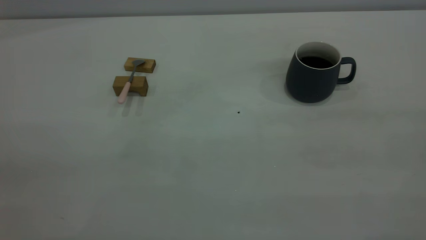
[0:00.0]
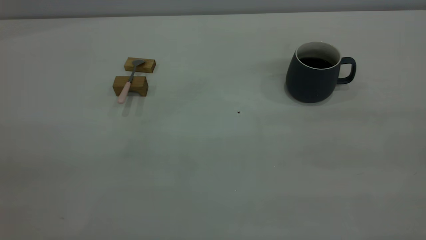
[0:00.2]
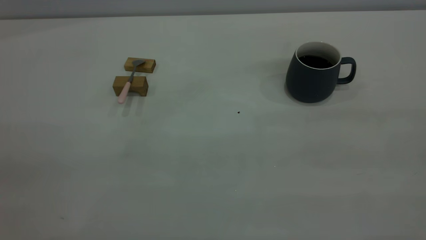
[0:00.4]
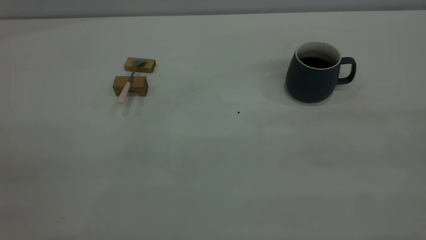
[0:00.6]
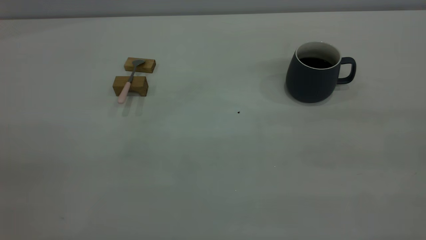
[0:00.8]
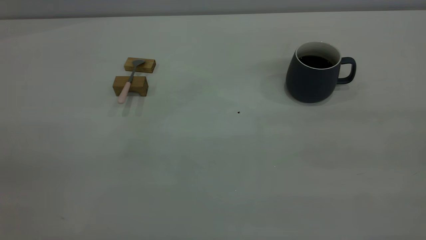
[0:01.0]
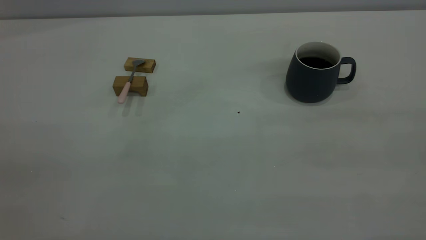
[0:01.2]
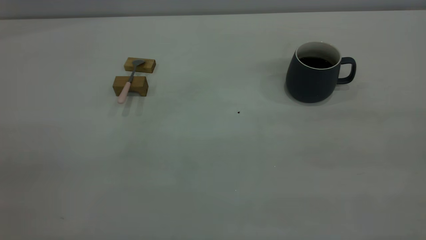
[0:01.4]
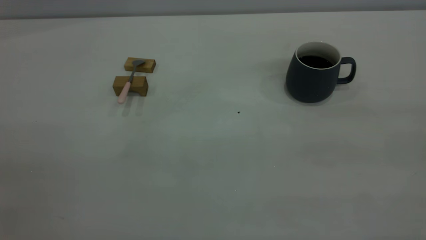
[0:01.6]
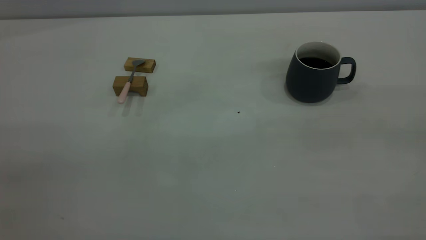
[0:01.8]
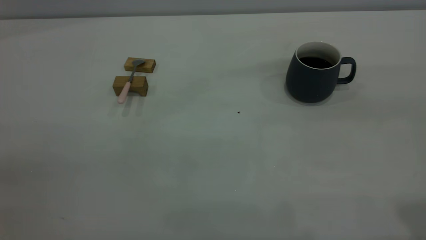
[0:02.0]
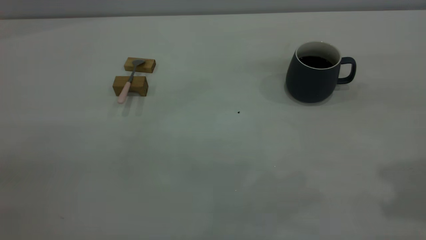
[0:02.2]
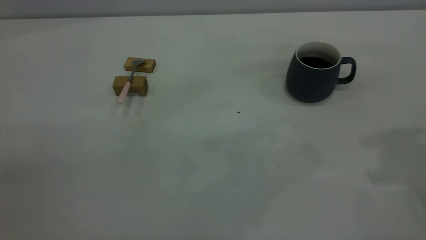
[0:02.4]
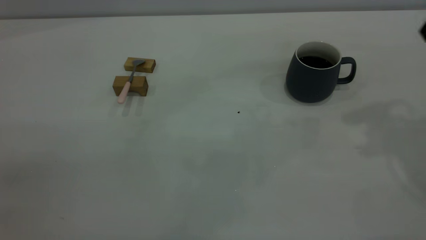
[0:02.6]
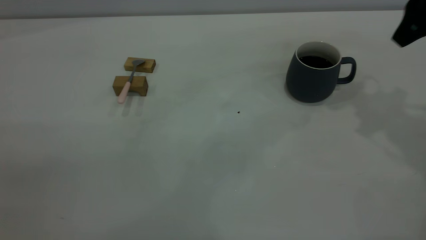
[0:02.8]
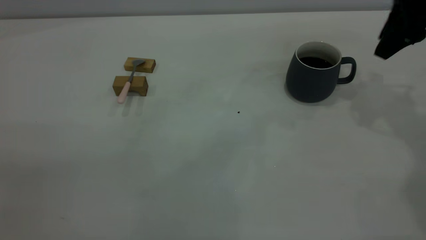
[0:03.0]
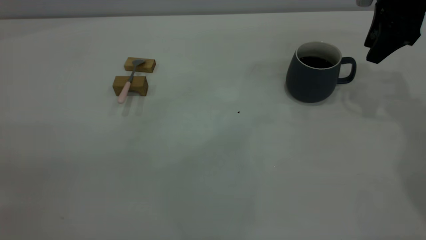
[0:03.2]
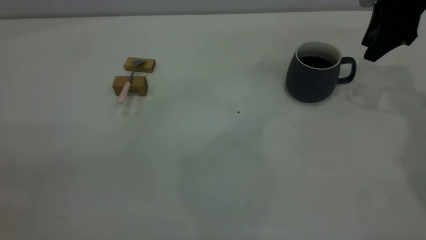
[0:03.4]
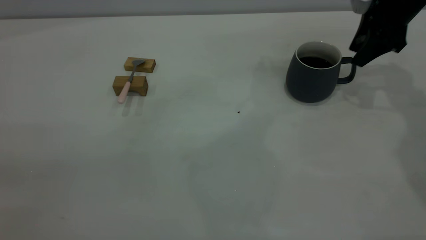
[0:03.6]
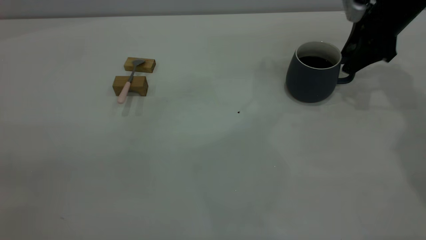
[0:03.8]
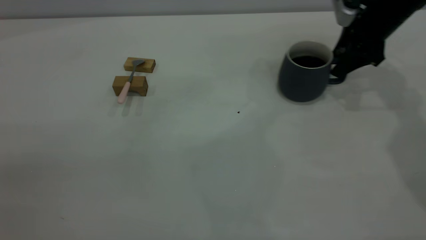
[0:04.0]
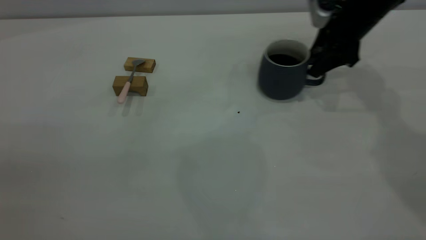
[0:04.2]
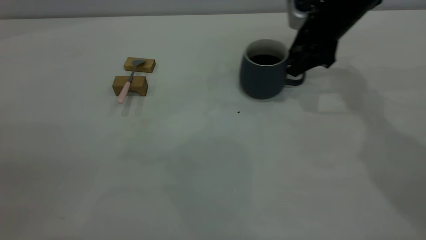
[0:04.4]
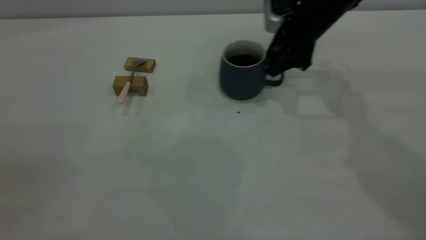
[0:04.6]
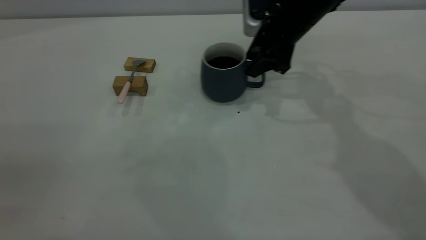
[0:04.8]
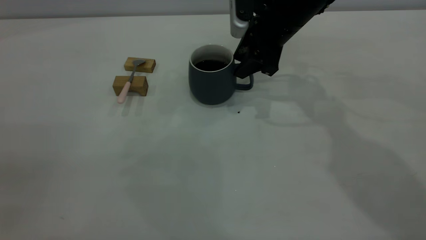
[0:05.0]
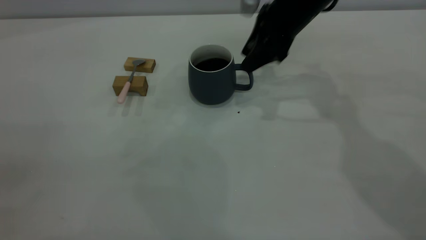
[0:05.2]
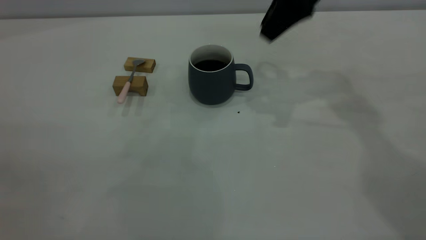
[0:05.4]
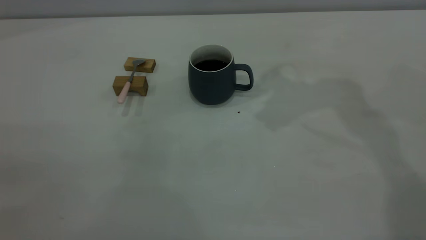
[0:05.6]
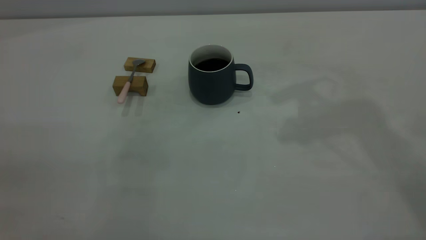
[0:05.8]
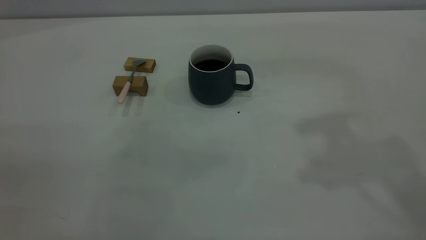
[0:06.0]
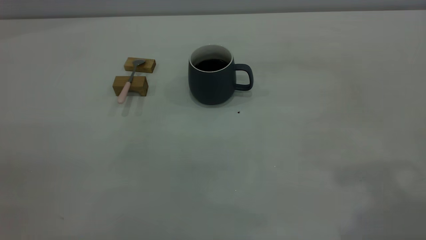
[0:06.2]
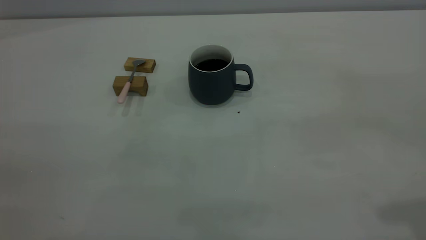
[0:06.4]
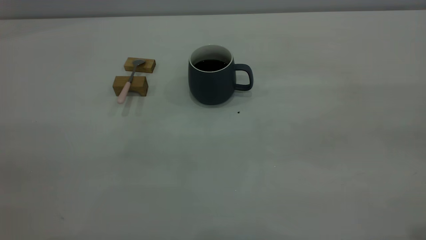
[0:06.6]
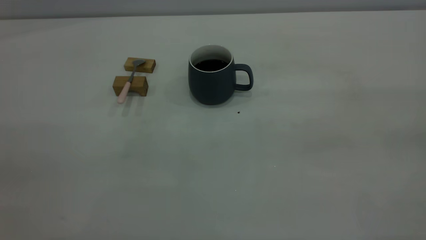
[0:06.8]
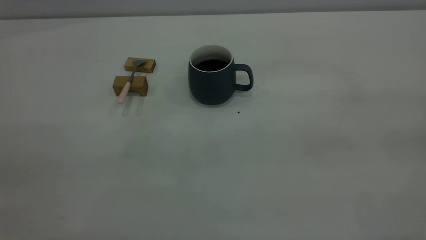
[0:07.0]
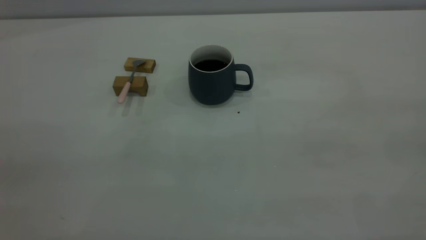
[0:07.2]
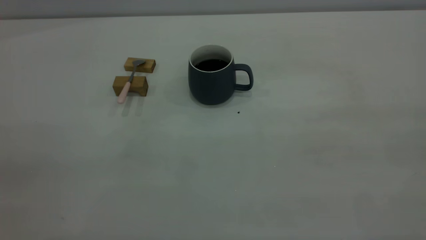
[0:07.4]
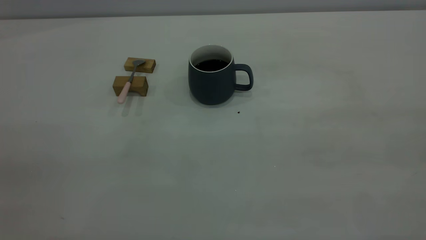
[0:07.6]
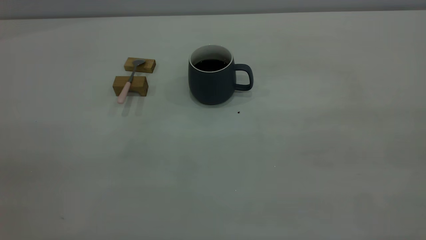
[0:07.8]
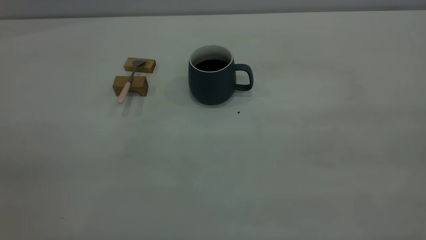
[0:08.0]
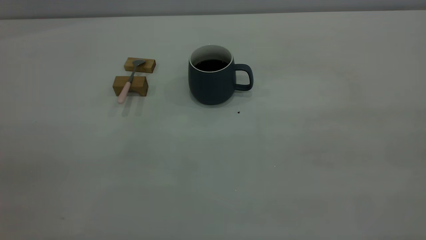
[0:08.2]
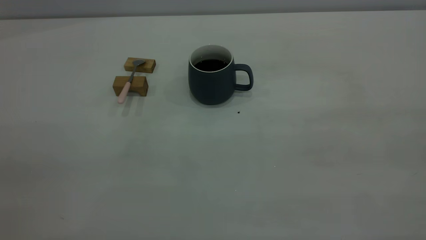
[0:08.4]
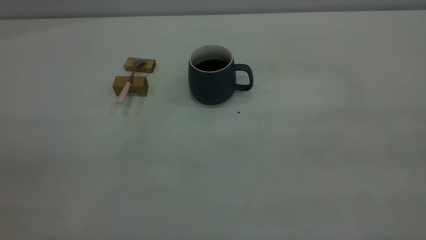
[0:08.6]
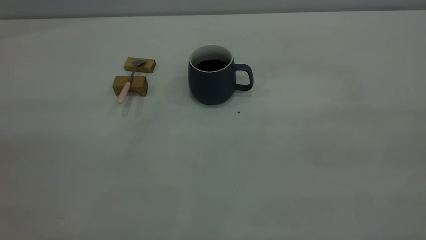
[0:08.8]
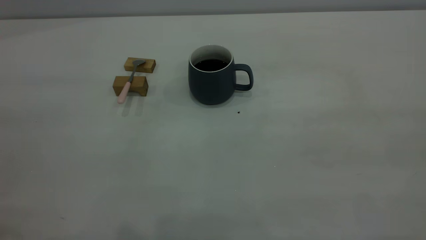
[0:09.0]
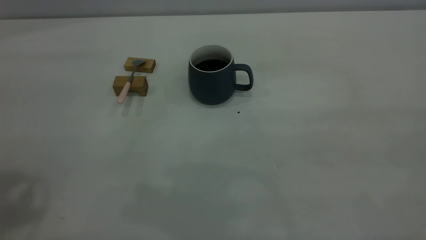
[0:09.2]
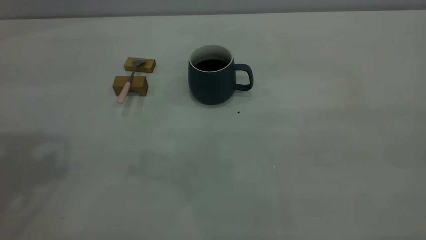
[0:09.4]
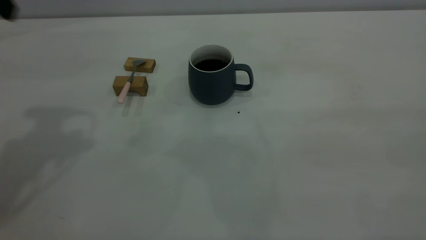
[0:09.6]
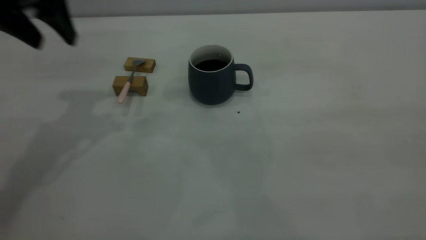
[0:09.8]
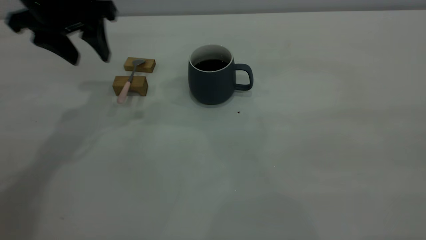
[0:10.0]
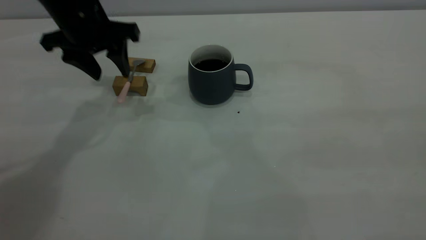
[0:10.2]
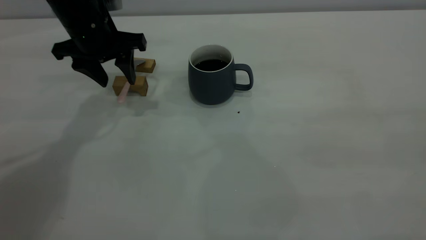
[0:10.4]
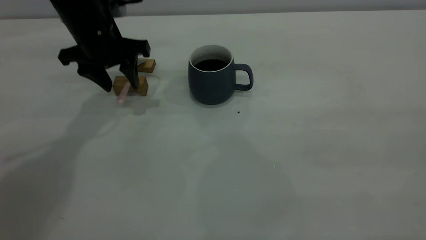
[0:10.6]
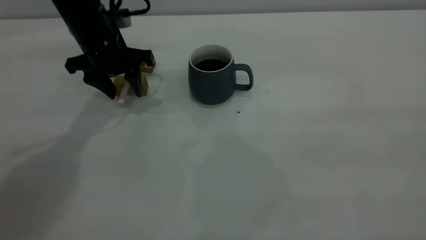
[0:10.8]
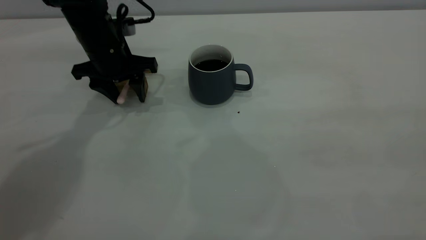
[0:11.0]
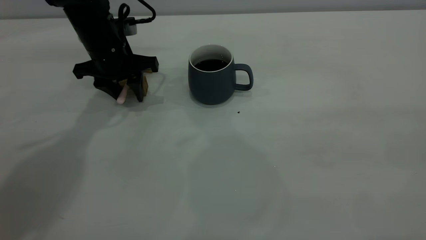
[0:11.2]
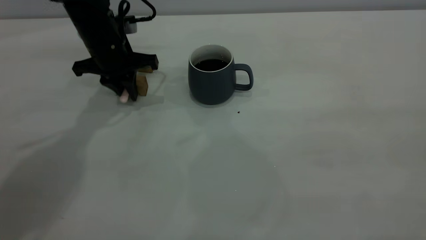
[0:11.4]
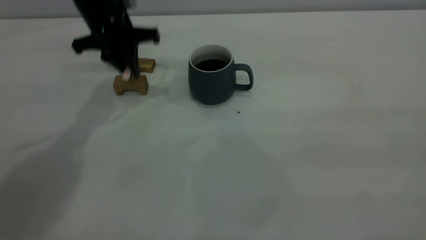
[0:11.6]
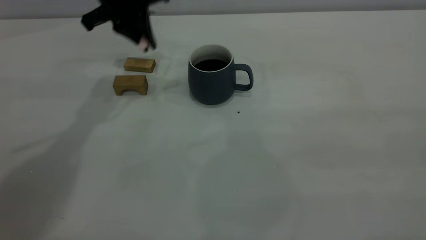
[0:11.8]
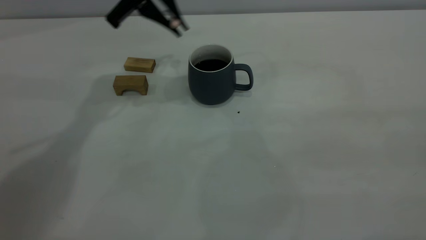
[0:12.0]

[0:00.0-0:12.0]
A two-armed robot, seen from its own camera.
Step, 0:00.0 to 0:05.2: Move the cup with coffee to the center of view.
Step, 0:05.4 to 0:11.6: Pick up the spoon.
0:01.6 to 0:03.0: The right gripper shifts roughly 40 cm forward and downward.
0:03.0 to 0:04.4: The right gripper moves to the left and downward, about 10 cm.
0:04.4 to 0:06.0: The right gripper heads upward and backward, covering about 35 cm.
0:09.0 to 0:10.4: The left gripper is displaced forward and downward by some 40 cm.
0:10.4 to 0:12.0: The left gripper shifts approximately 10 cm upward and to the right, and closes its fingers.

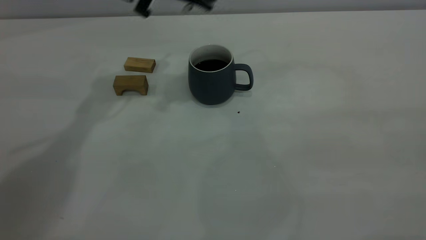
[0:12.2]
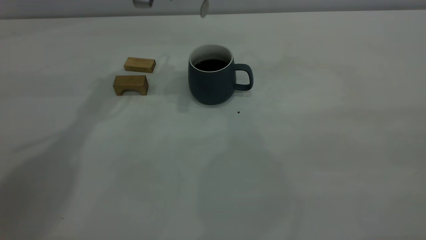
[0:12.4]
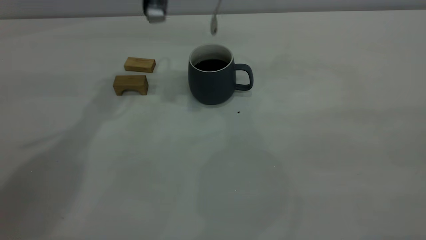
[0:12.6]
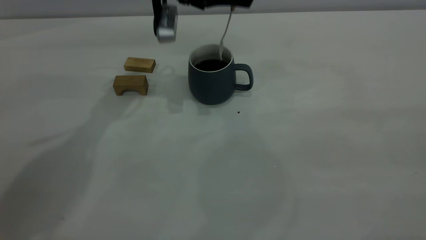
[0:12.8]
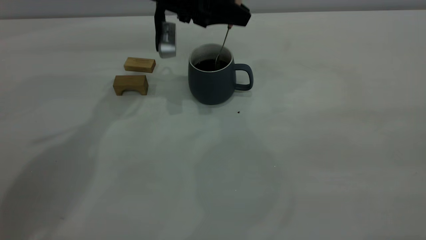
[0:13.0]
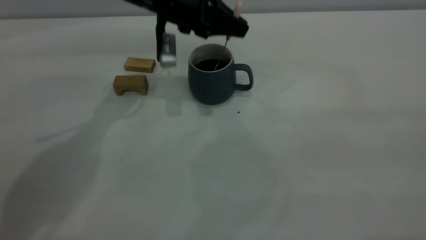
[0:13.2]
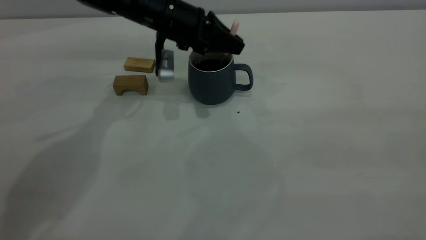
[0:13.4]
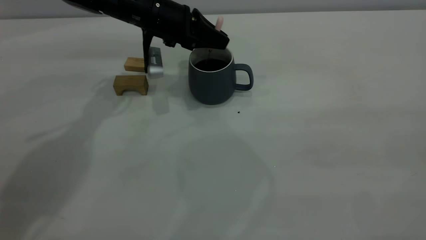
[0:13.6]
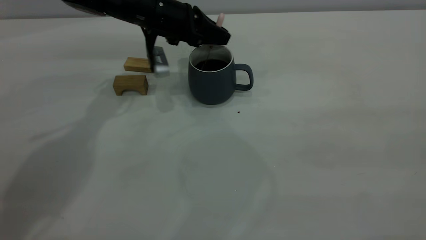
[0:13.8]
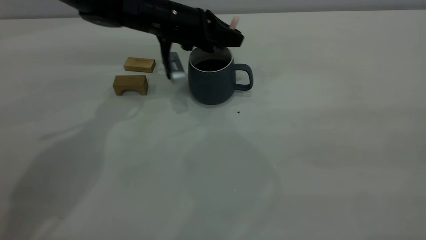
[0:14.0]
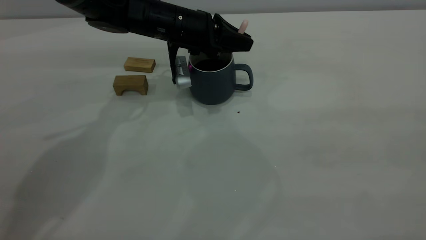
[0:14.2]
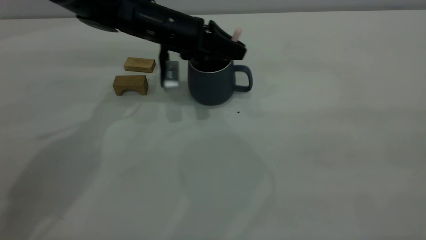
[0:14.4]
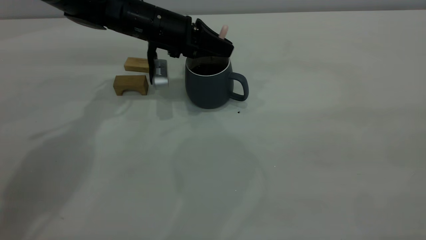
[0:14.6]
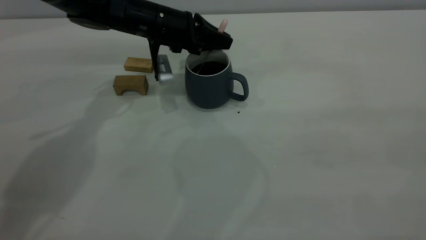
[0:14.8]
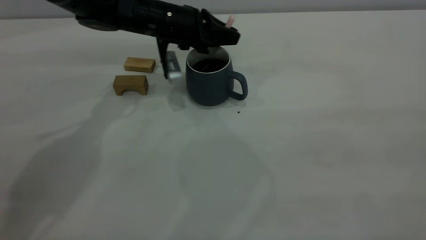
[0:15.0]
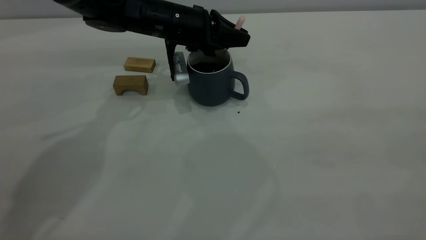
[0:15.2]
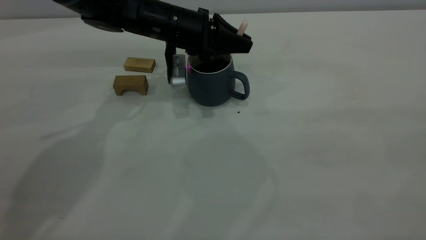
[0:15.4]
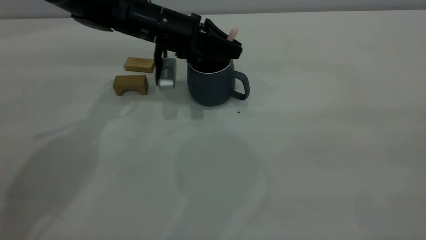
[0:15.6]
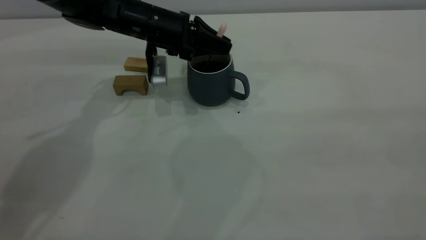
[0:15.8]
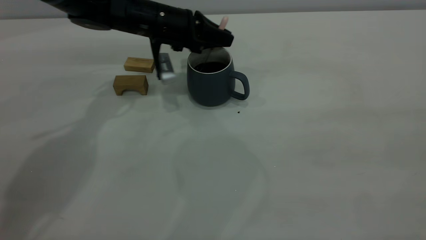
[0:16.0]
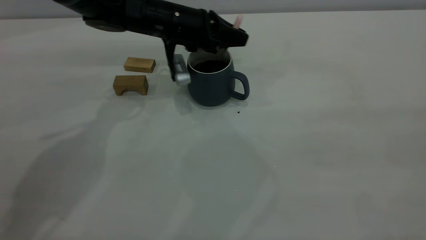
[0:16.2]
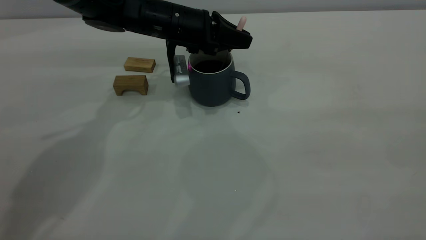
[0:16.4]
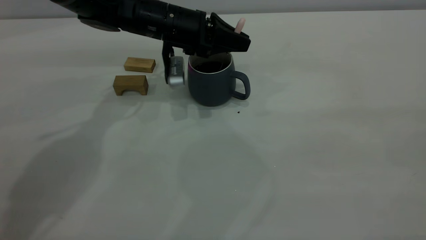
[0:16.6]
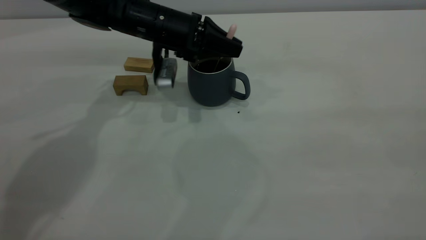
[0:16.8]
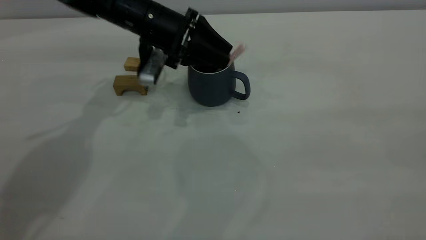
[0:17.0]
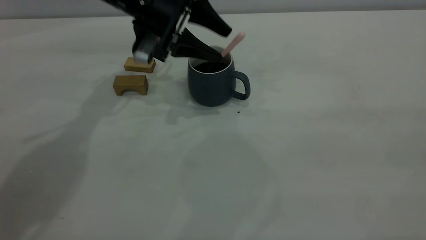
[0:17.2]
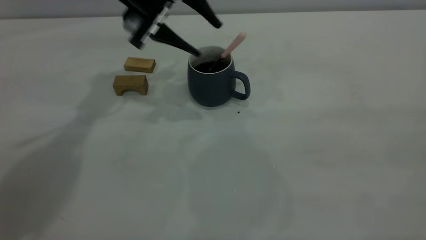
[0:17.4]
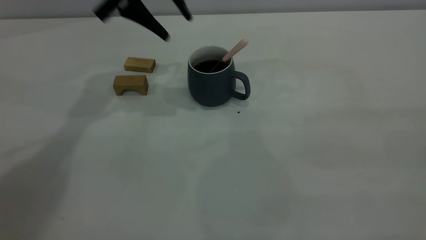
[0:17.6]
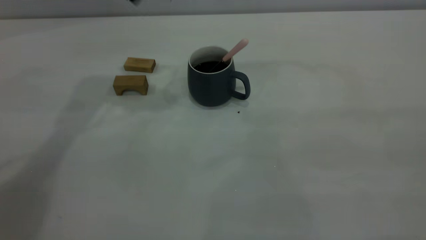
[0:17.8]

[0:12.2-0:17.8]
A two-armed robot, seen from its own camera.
Step, 0:12.2 to 0:17.4: Stir the coffee in the cup.
0:12.2 to 0:13.6: The left gripper is displaced downward by some 10 cm.
0:13.6 to 0:16.4: There are only small adjustments of the grippers.
0:16.4 to 0:17.8: The left gripper is displaced upward by some 20 cm, and opens its fingers.
